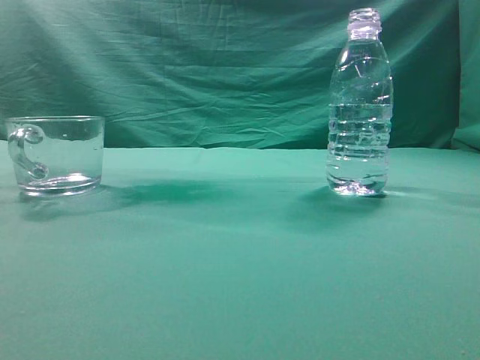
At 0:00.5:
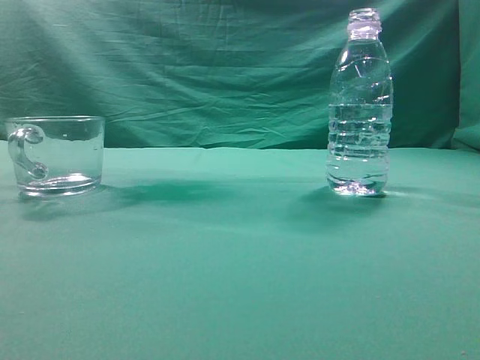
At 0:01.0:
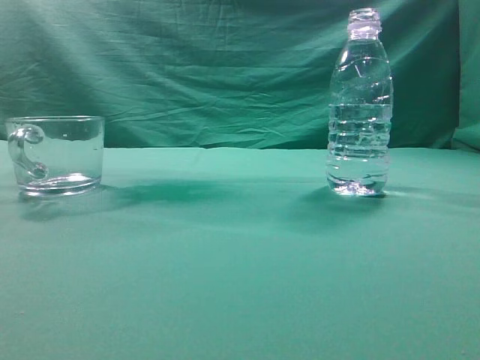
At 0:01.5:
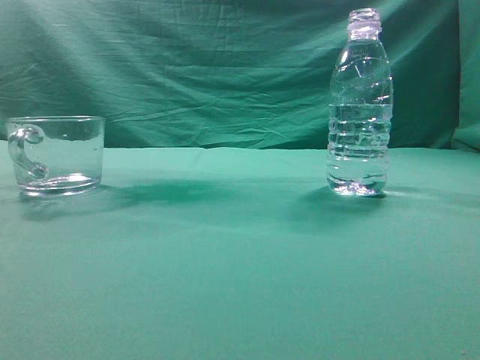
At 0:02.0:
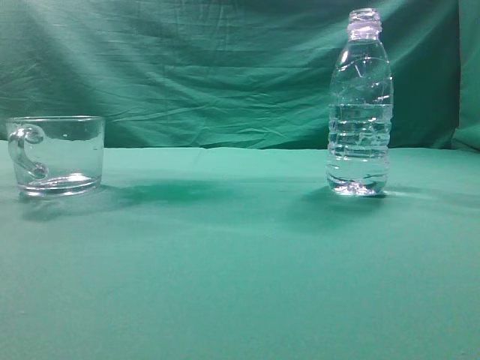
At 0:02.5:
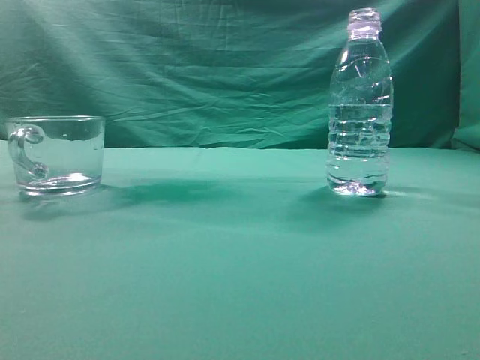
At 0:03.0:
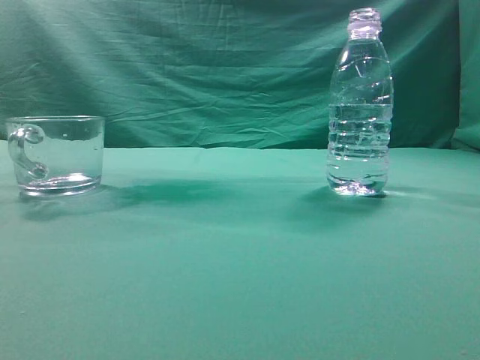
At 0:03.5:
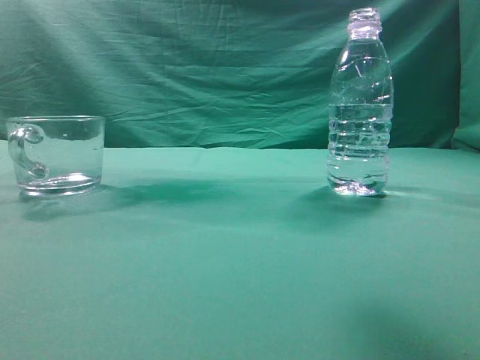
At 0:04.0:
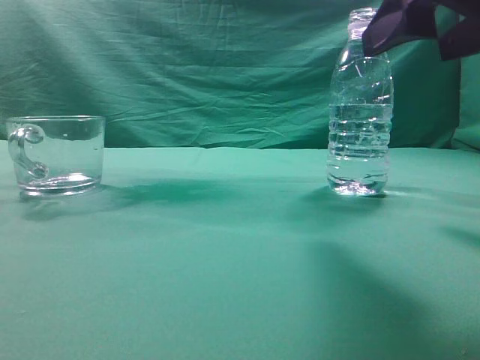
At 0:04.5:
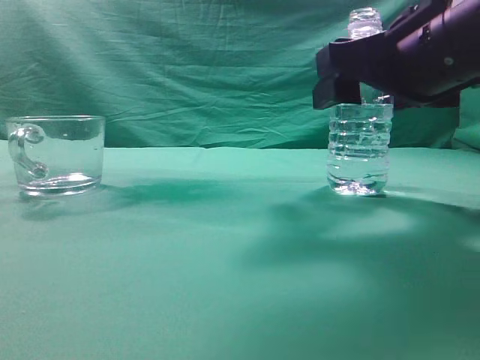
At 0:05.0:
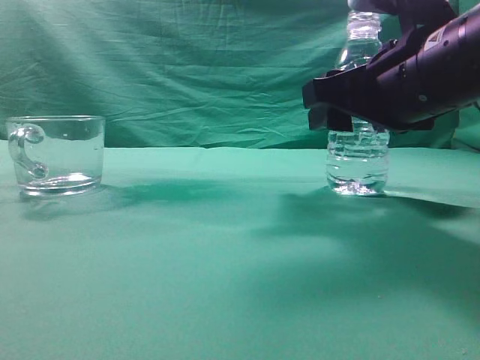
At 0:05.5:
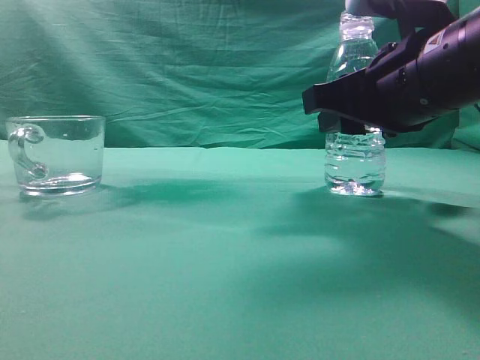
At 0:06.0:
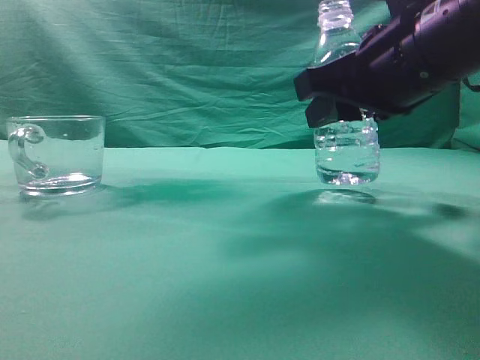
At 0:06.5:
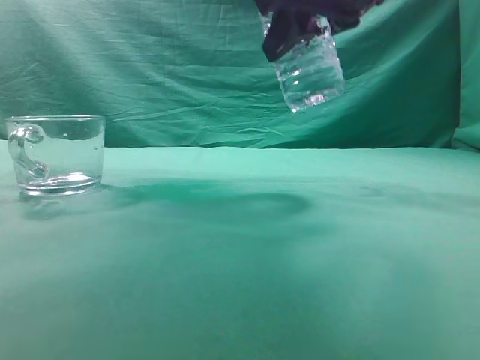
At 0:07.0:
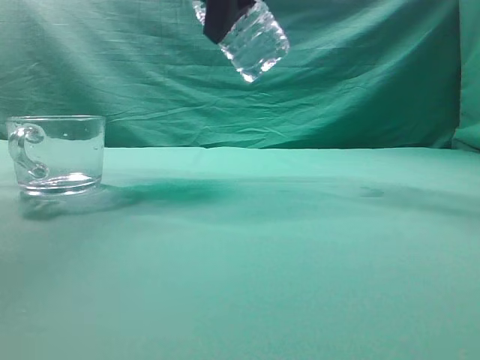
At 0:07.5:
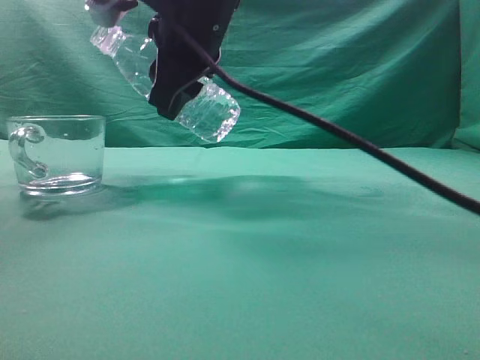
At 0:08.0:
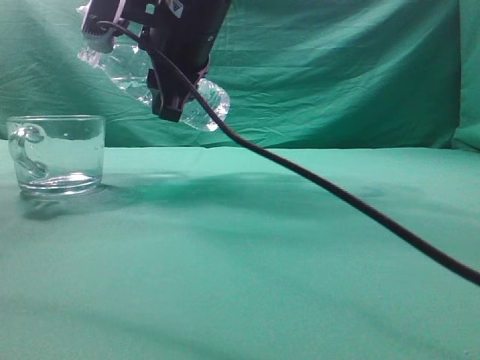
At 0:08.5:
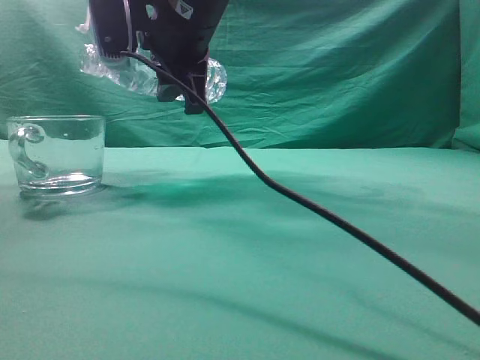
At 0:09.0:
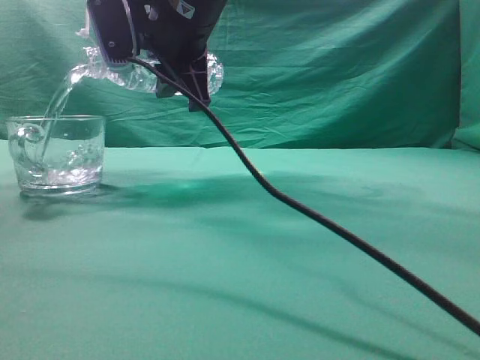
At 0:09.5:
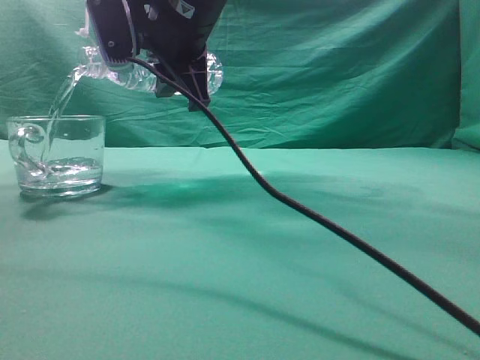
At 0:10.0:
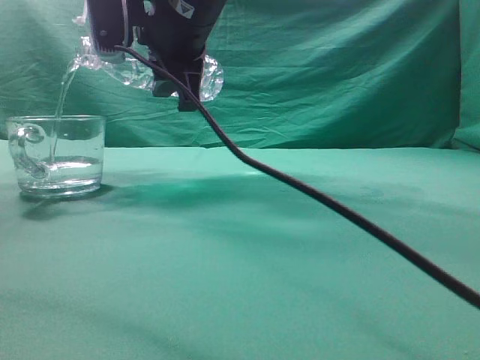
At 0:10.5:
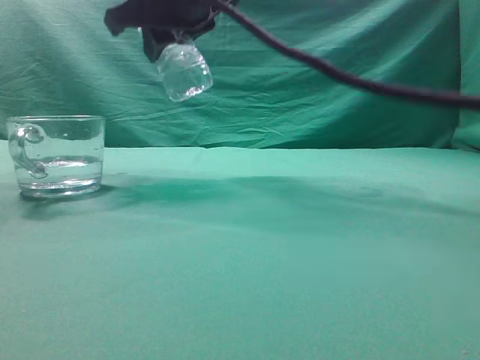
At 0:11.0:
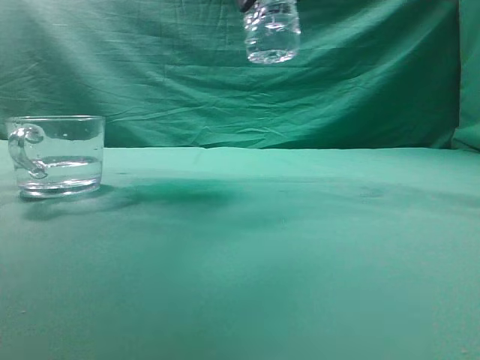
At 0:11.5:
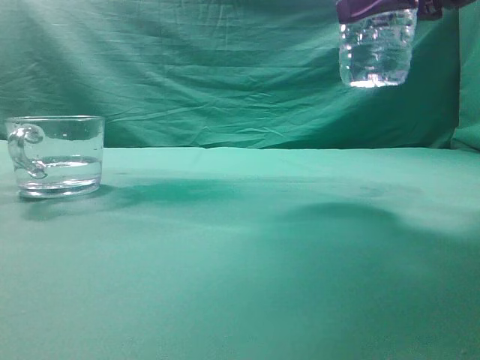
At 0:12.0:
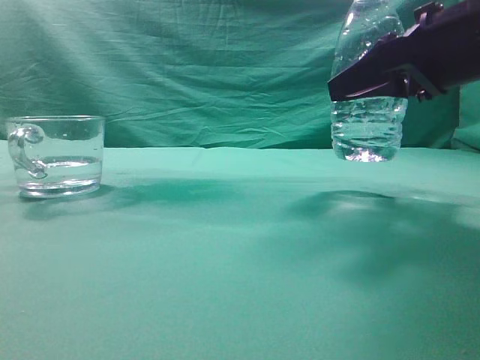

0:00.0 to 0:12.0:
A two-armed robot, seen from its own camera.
Task of the whole recording: pick up the water bottle and pour the water in it into the glass.
Step, 0:00.0 to 0:06.0: Grasp the mineral water bottle.
Step, 0:06.5 to 0:10.0: Pour water into the teacup.
0:02.0 to 0:04.0: The right gripper heads forward, to the left and downward, covering approximately 20 cm, and opens.
0:04.0 to 0:06.0: The right gripper shifts some 5 cm forward, and closes up.
0:06.0 to 0:08.0: The right gripper travels to the left and forward by some 20 cm.
0:10.0 to 0:12.0: The right gripper moves to the right, approximately 25 cm.

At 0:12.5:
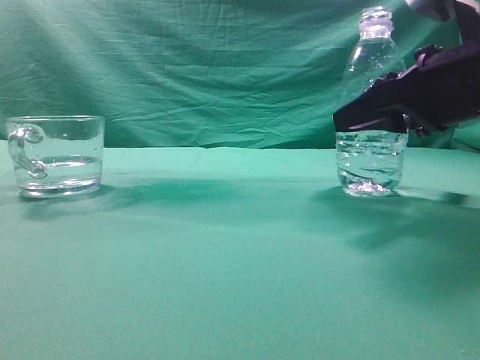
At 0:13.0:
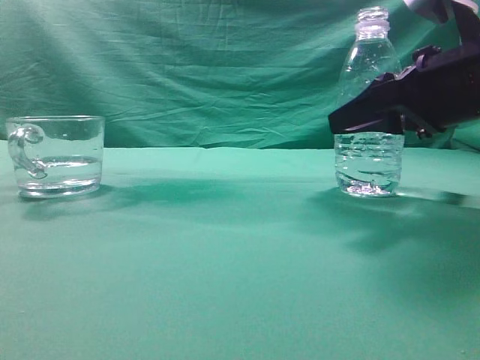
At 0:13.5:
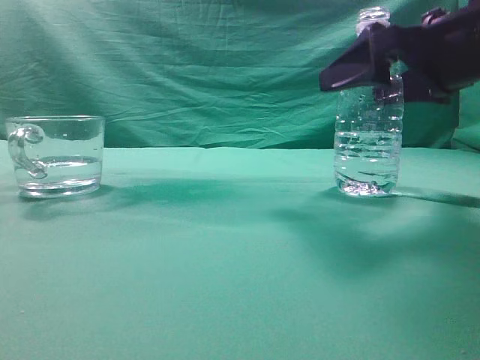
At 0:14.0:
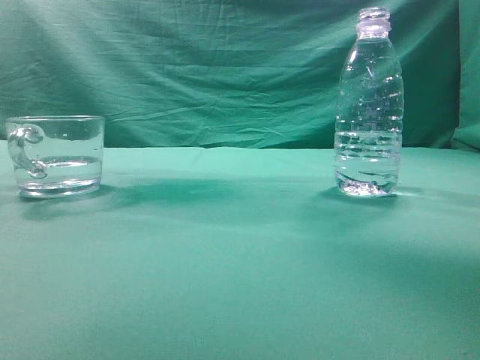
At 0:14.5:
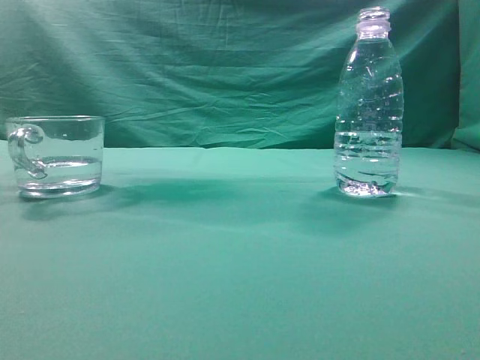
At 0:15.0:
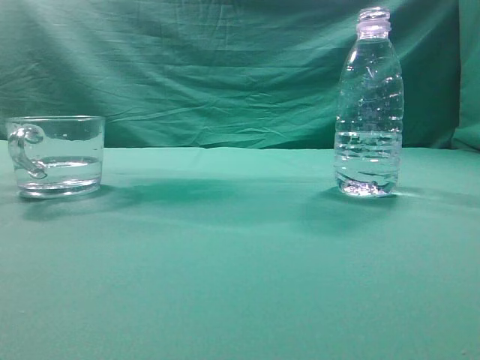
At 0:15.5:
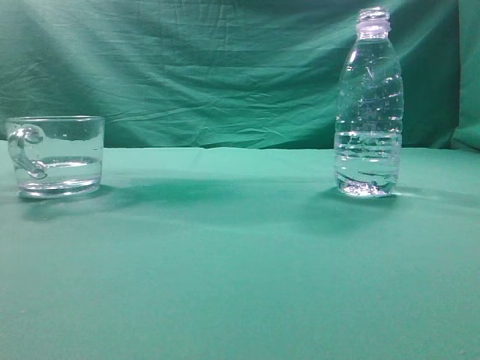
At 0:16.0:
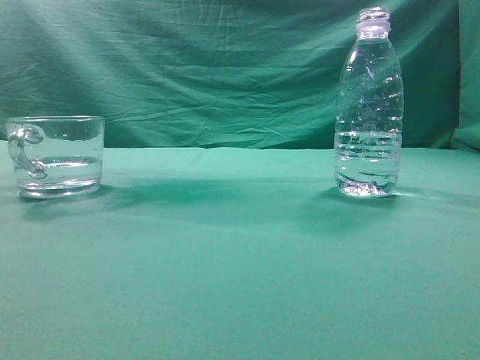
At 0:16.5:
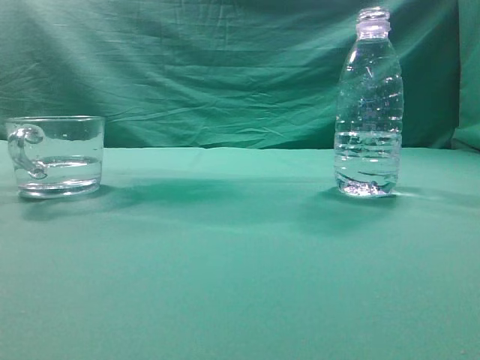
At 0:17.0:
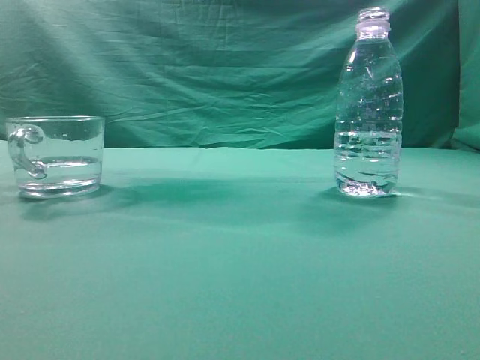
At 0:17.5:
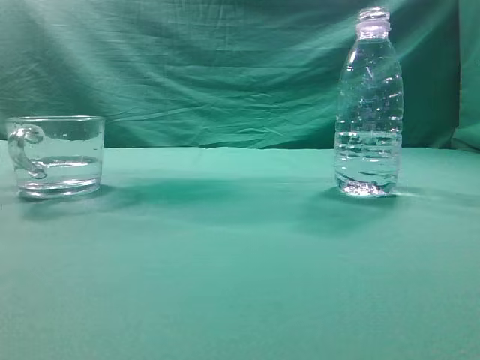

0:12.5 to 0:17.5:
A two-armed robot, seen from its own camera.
Task of the whole recording: pick up the water bottle and pour the water in it into the glass.
0:12.5 to 0:15.0: The right gripper travels upward and backward by roughly 35 cm, and closes its fingers.
